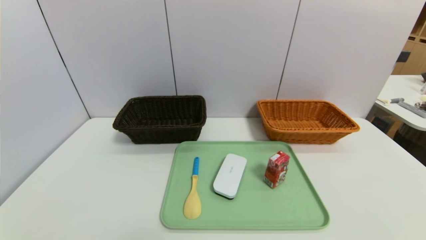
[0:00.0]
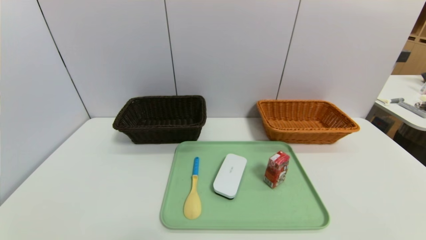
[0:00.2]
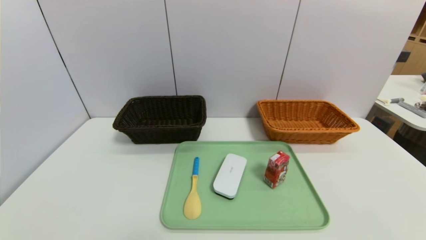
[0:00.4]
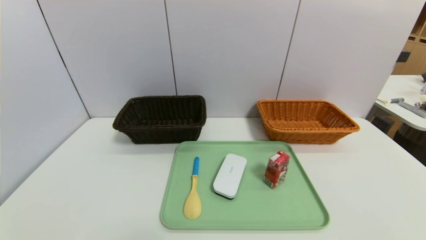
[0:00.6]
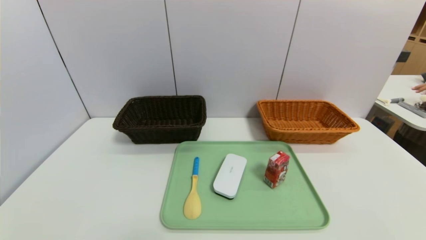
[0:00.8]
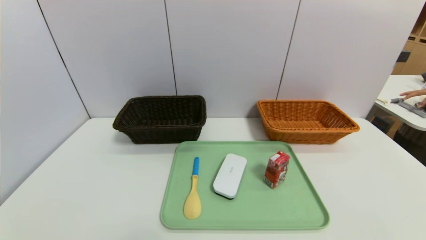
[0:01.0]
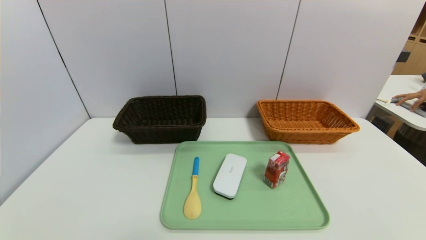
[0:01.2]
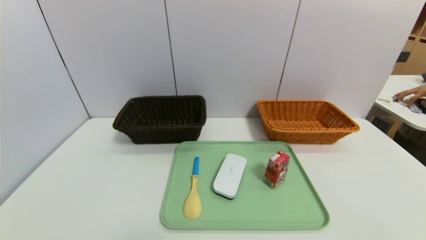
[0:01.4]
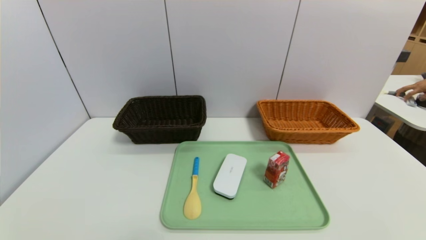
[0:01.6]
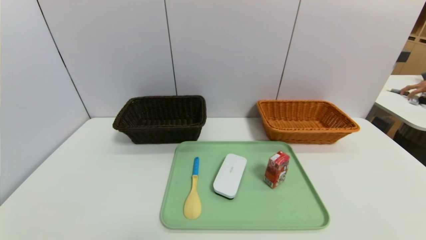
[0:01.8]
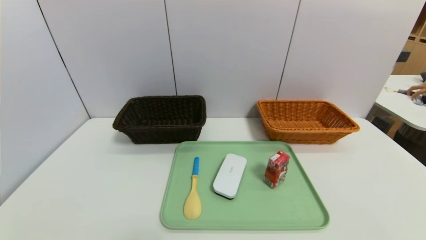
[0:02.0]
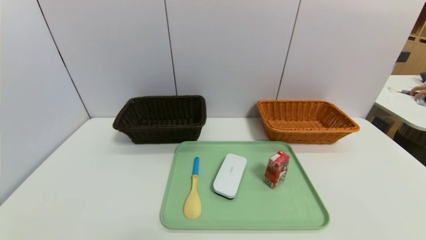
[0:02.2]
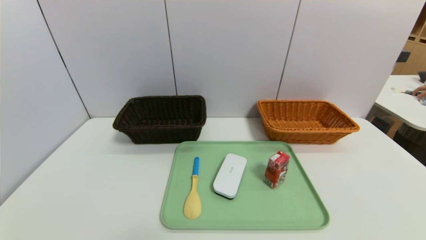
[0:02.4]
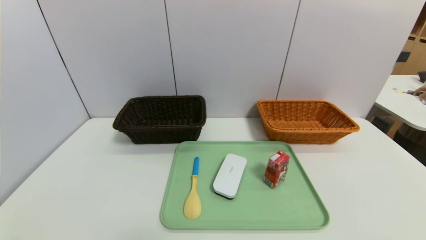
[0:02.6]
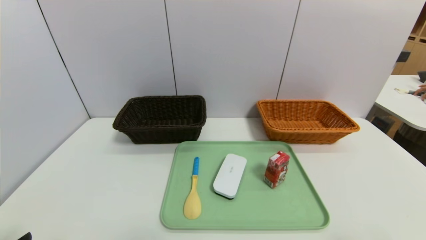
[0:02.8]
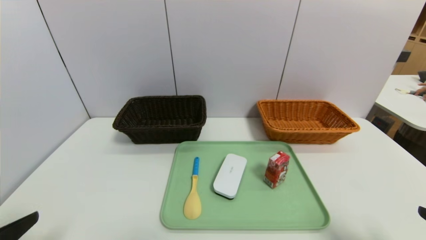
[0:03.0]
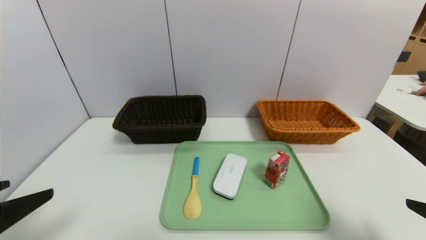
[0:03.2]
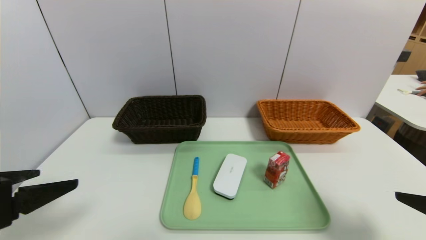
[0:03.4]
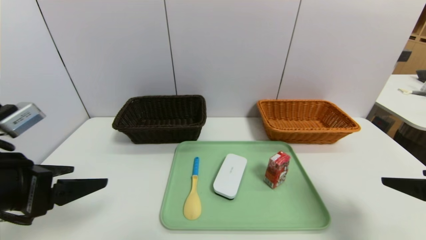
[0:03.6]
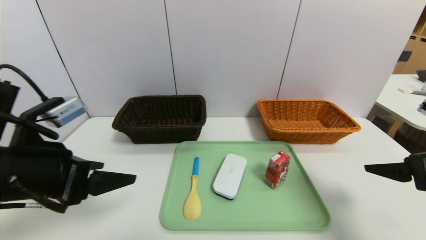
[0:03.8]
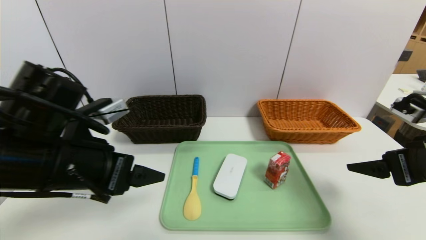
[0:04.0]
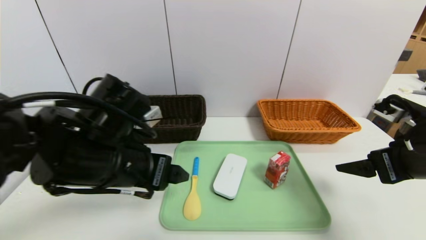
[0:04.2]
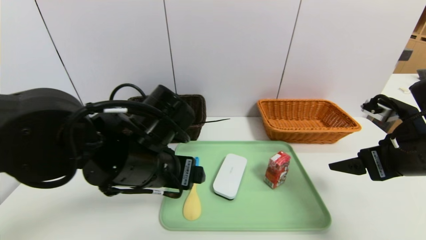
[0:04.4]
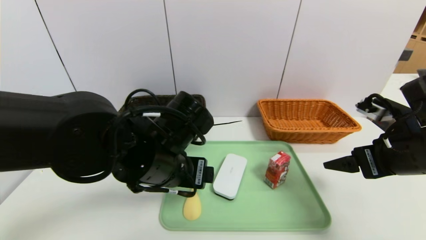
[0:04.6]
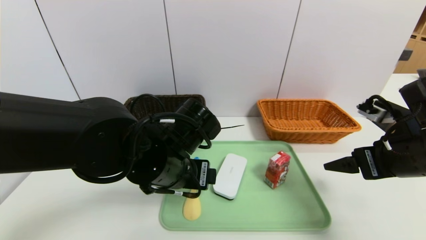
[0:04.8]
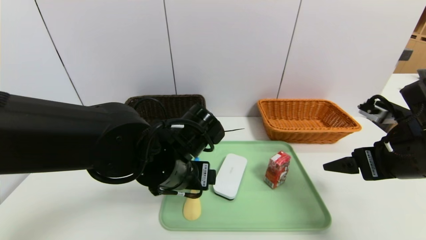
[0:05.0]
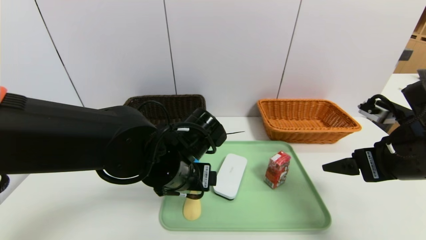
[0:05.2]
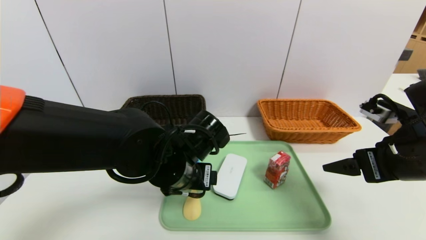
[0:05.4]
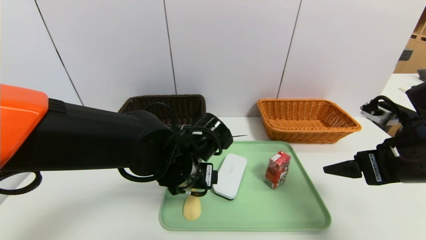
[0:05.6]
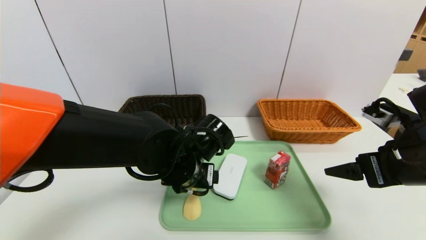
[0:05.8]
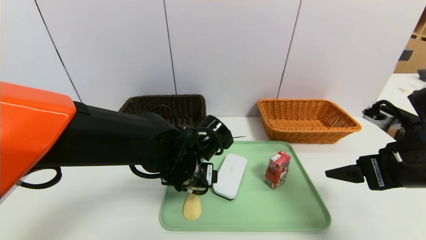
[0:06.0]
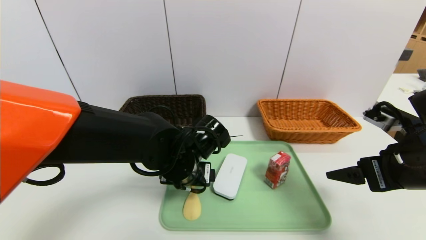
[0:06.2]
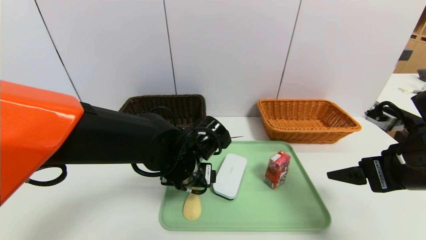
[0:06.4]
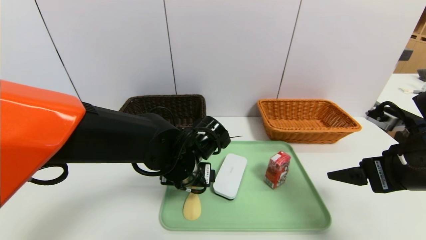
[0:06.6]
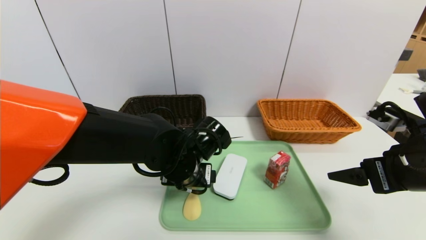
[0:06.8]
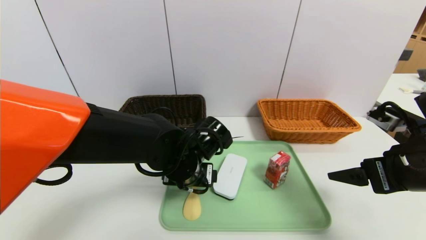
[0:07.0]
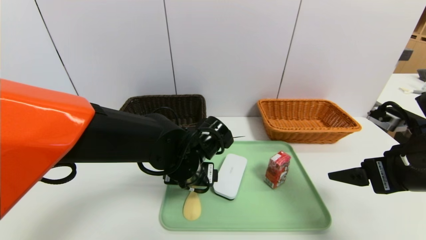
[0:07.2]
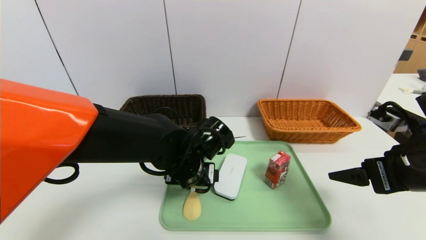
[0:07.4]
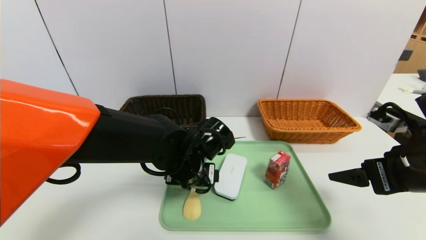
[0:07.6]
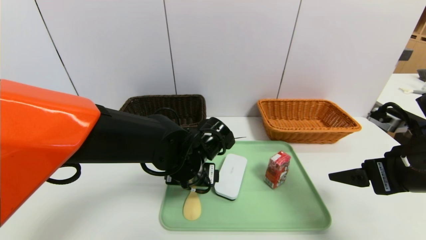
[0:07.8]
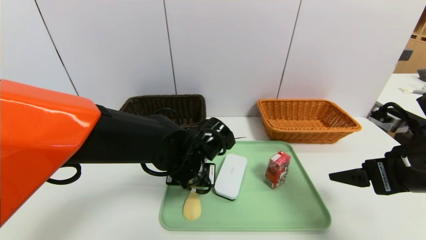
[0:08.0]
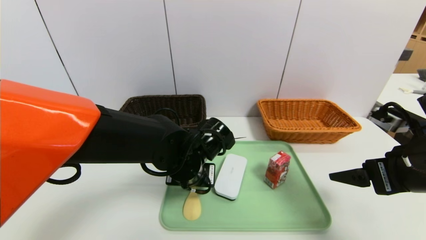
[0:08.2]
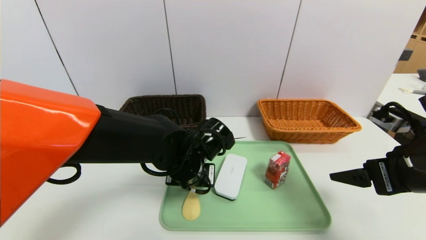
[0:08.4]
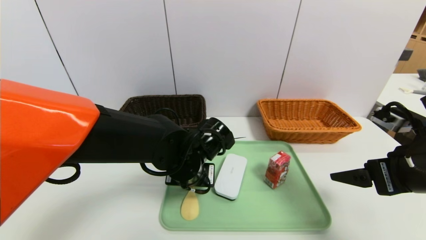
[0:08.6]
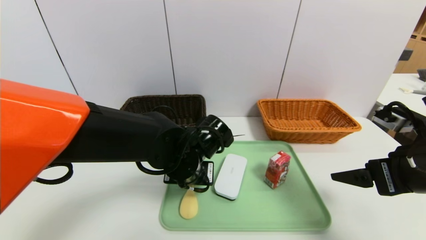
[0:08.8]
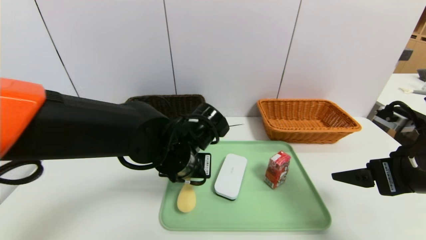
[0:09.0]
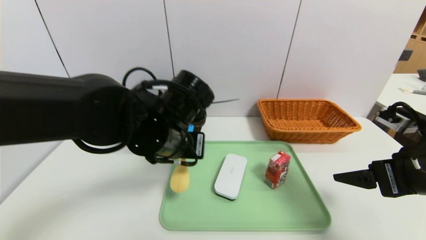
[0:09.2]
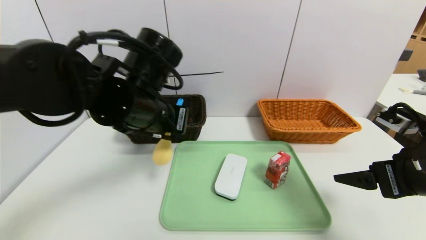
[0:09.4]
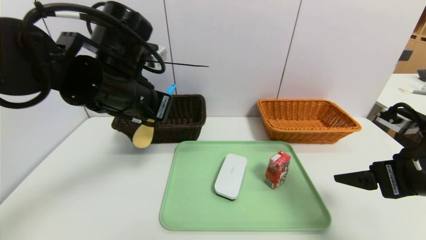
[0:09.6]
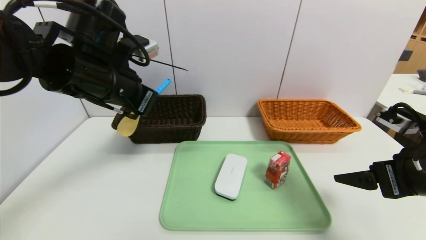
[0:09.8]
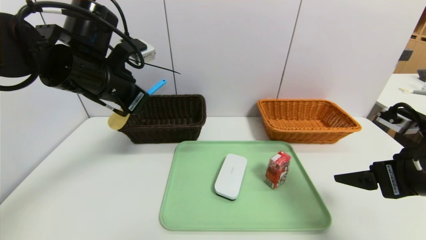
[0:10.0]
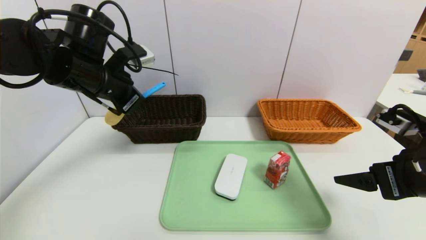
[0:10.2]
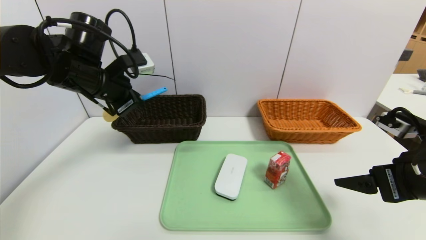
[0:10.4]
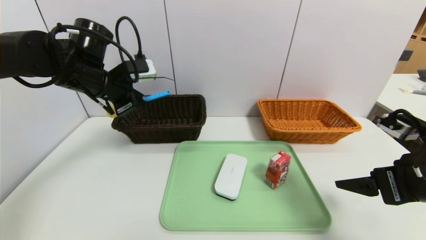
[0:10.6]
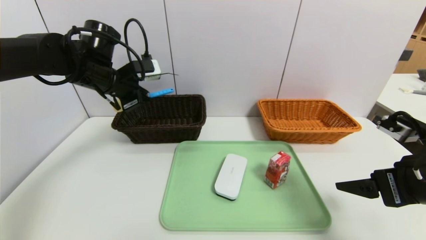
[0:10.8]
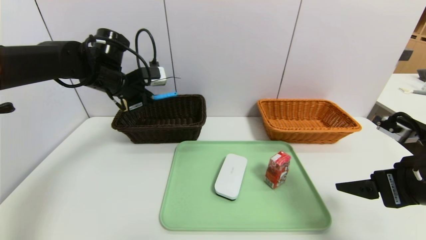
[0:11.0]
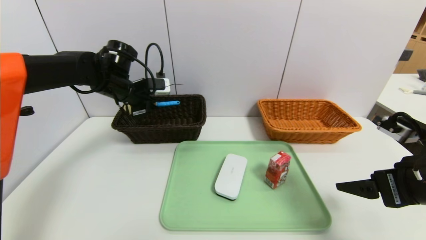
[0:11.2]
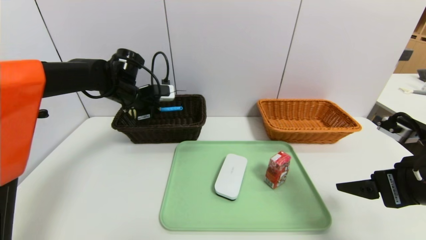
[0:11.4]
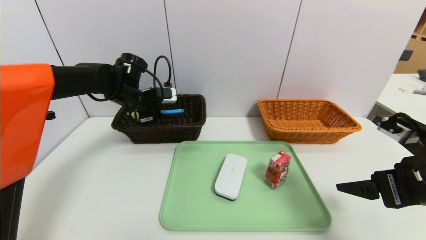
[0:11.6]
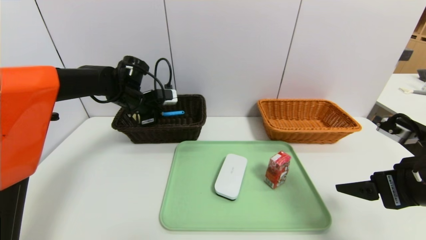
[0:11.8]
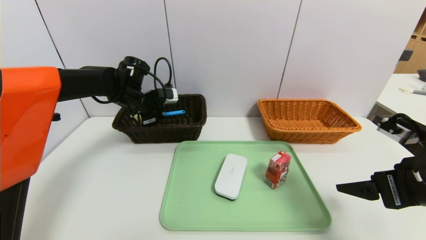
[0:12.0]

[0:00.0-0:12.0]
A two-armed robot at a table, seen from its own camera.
Task of the whole recording: place the food in the right basket with the right gripper, and place the non food items in the left basket with the left gripper.
0:00.0 to 0:01.6: Both grippers stay about where they are.
0:01.6 to 0:03.0: The left gripper goes about 15 cm upward; the right gripper is displaced upward and forward by roughly 15 cm.
0:03.0 to 0:04.4: The right gripper shifts some 15 cm forward. The left gripper moves to the right and forward, about 25 cm.
0:04.4 to 0:06.0: The left gripper goes some 10 cm downward and to the right.
0:06.0 to 0:07.6: The grippers stay close to where they were, moving slightly.
0:07.6 to 0:09.0: The left gripper closes up.
0:09.0 to 0:10.4: The left gripper goes some 20 cm to the left, upward and forward.
0:10.4 to 0:12.0: The left gripper moves forward and downward, some 15 cm.

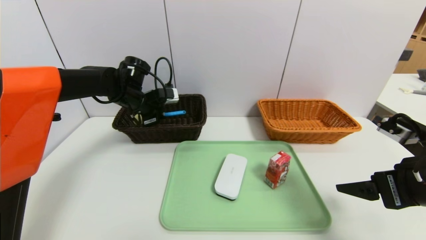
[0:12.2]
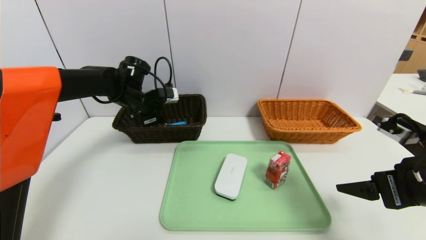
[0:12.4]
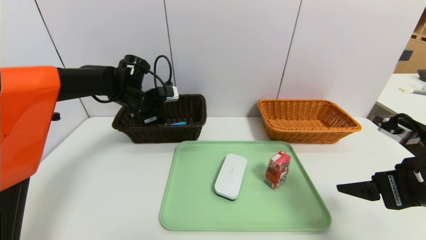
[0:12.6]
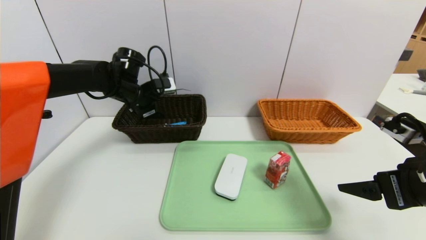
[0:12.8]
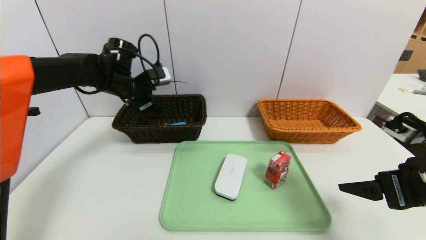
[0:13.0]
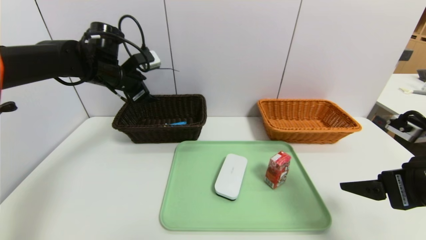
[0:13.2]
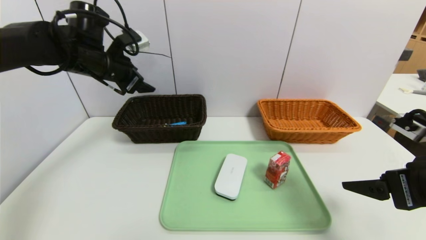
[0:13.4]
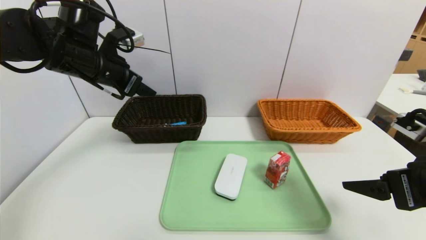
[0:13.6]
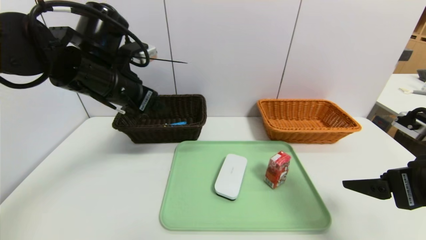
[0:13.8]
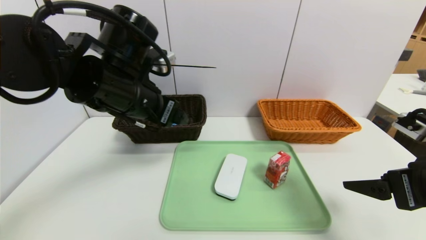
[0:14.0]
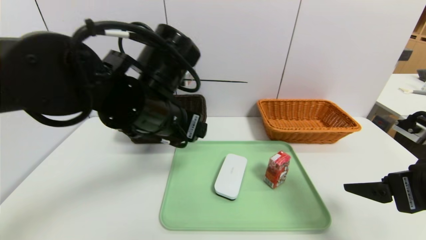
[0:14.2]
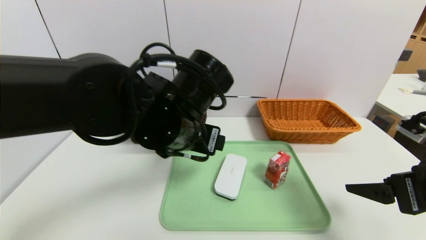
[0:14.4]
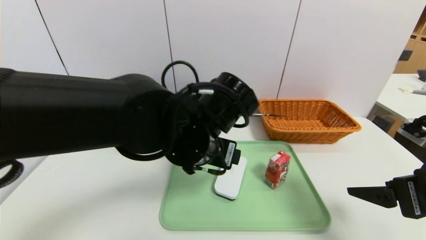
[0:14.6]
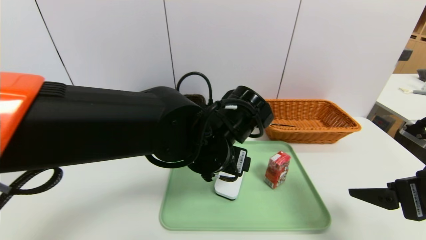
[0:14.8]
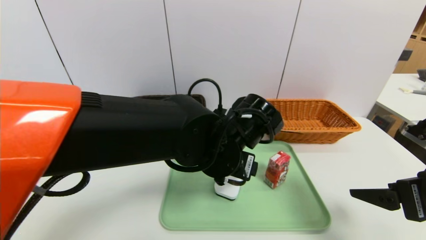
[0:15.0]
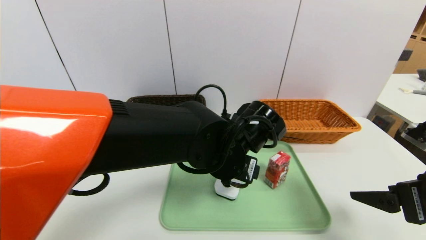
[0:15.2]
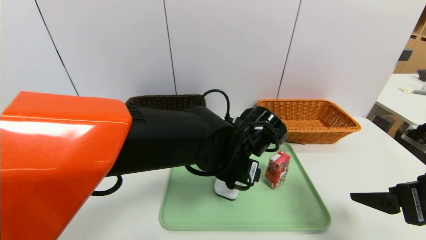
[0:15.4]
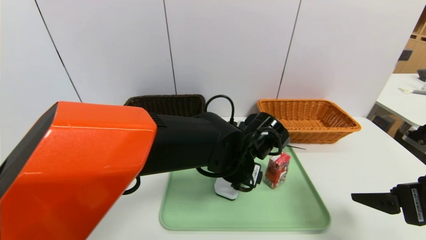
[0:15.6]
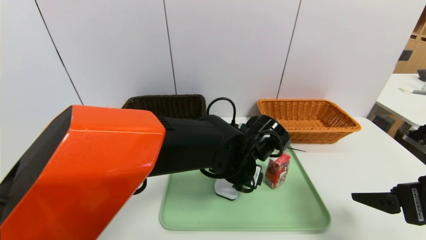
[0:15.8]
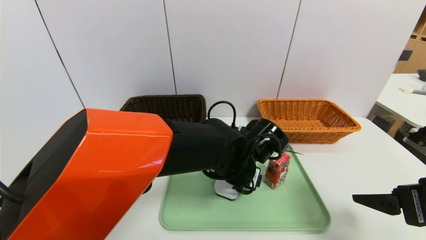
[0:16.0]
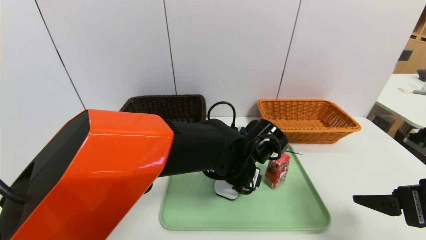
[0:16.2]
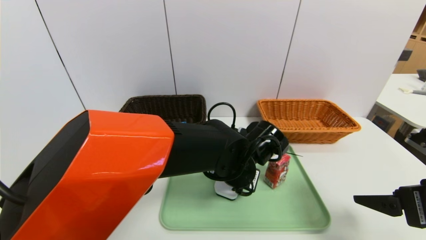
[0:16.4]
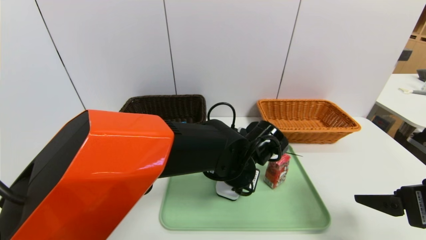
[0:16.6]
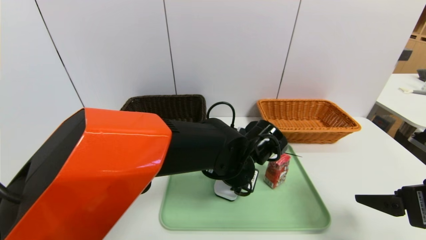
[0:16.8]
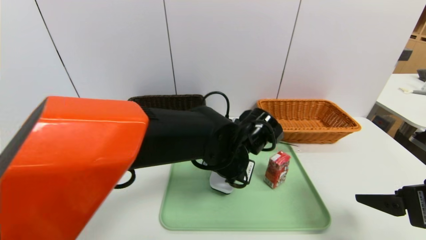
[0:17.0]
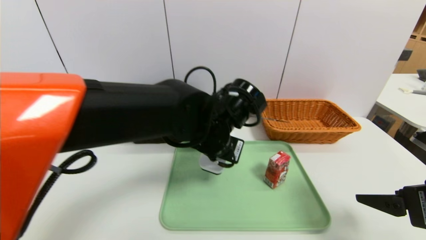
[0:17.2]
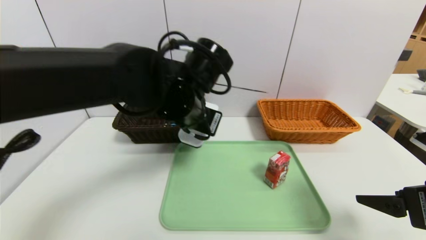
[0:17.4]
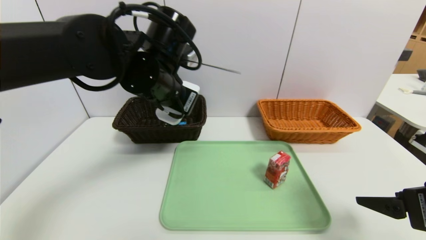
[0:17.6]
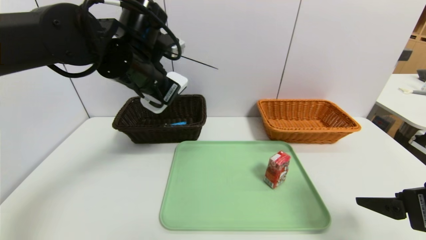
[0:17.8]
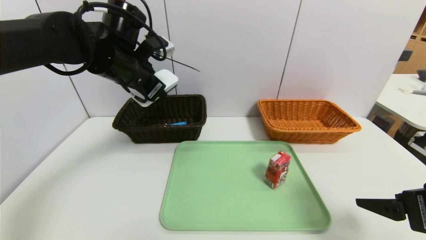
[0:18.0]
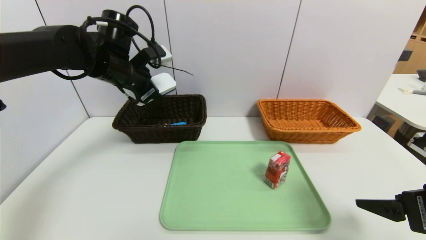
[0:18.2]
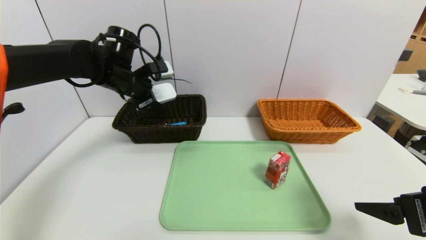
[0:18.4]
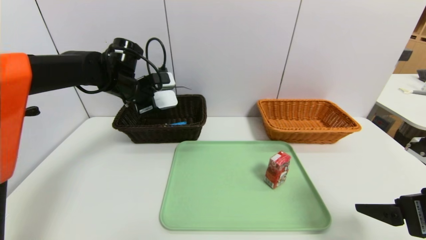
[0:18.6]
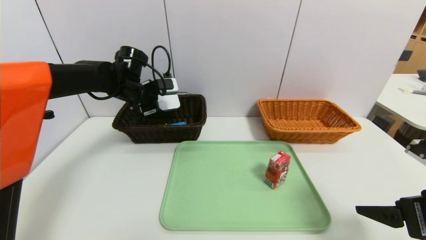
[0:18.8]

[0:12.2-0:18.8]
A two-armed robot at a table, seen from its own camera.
Task of the whole recording: place the food in the right basket with the right gripper, and place the non food items in the left basket with the left gripper.
0:12.2 to 0:13.8: The left gripper is displaced backward and upward by roughly 15 cm, and opens.
0:13.8 to 0:15.4: The left gripper travels to the right and downward by approximately 25 cm.
0:15.4 to 0:17.2: The left gripper is displaced upward by approximately 5 cm, and closes its fingers.
0:17.2 to 0:18.8: The left gripper shifts some 25 cm to the left and forward.
